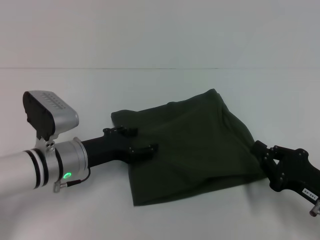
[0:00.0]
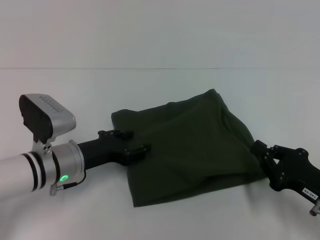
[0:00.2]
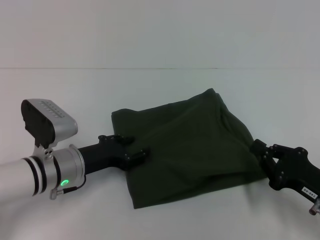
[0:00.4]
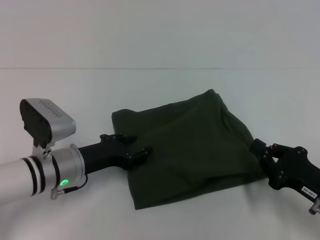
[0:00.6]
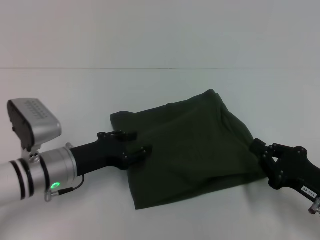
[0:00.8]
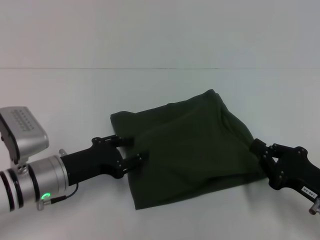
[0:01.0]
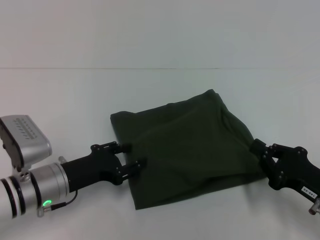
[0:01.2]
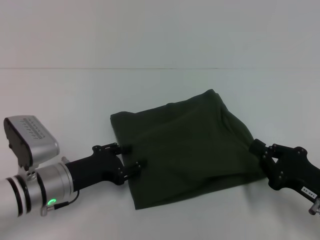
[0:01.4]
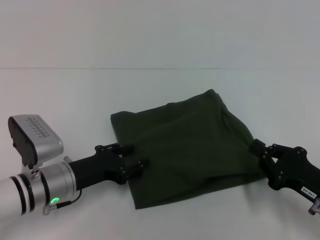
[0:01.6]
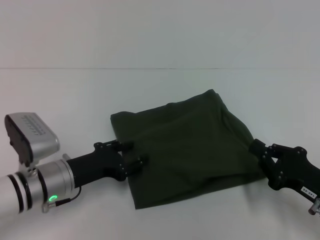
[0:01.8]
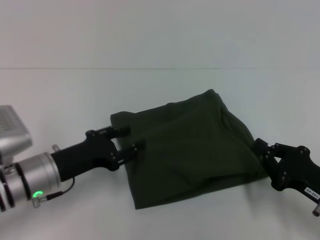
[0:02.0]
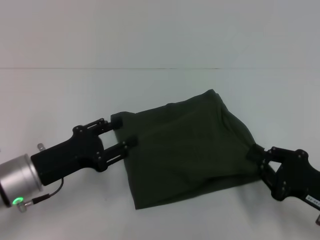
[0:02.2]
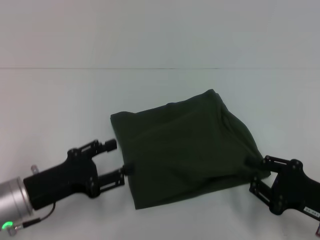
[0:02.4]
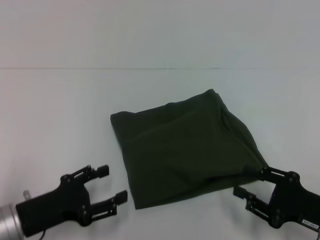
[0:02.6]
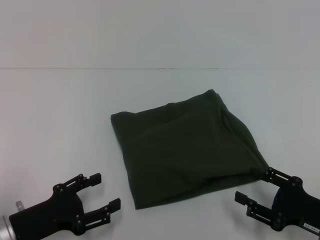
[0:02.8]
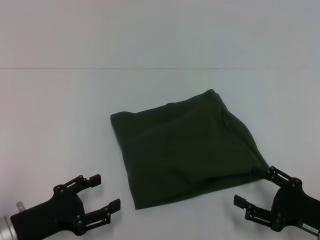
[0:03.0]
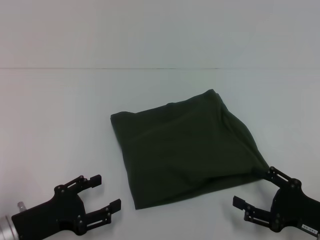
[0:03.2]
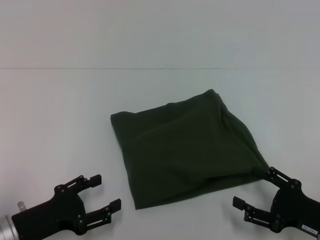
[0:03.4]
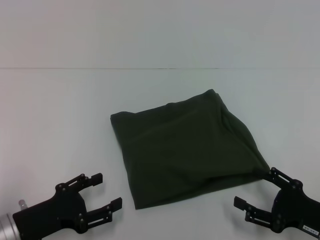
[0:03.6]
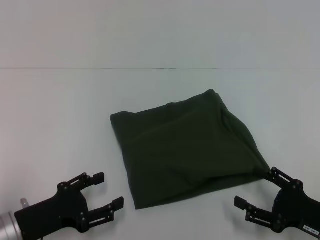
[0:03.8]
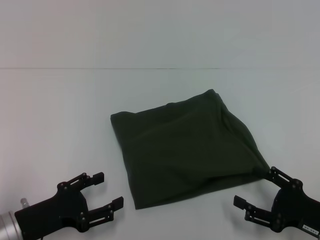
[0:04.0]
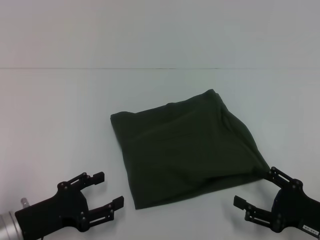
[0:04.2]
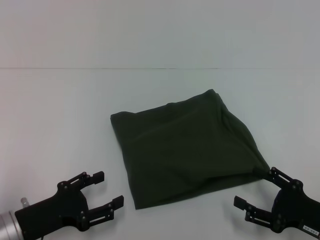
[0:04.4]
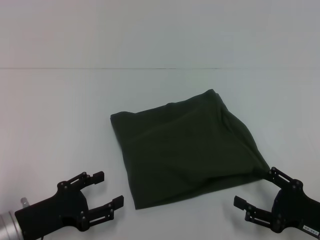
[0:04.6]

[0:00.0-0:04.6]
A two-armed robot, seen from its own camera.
0:00.0 to 0:01.6: There are only small adjustments of the grippers.
0:01.6 to 0:03.0: The right gripper opens. The left gripper shifts approximately 10 cm backward and to the left.
0:03.0 to 0:04.6: Both grippers stay put.

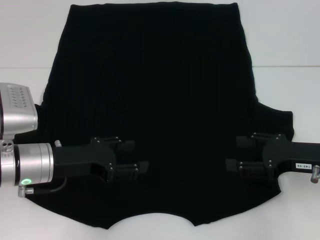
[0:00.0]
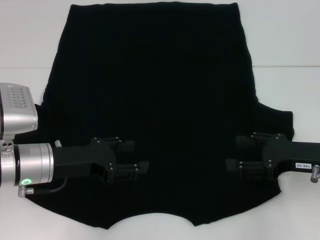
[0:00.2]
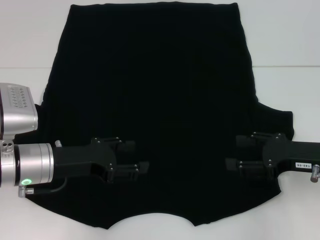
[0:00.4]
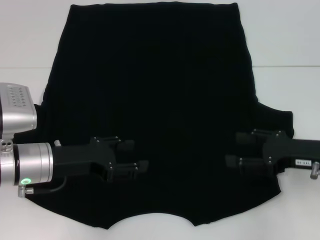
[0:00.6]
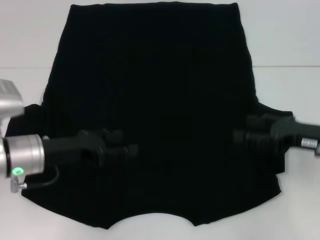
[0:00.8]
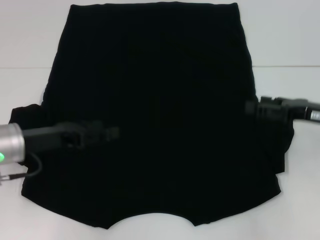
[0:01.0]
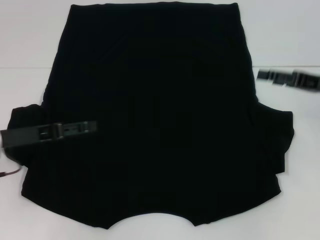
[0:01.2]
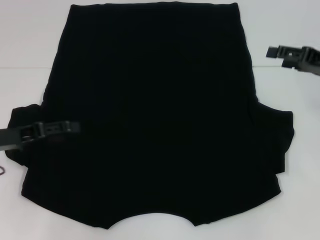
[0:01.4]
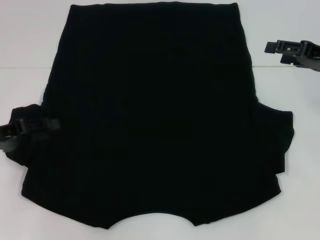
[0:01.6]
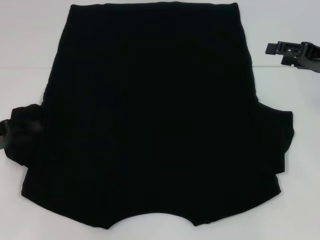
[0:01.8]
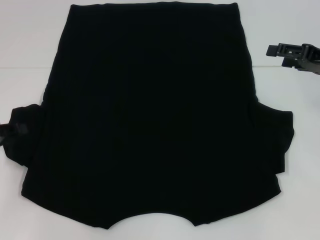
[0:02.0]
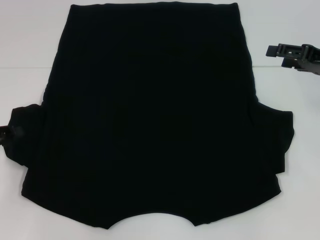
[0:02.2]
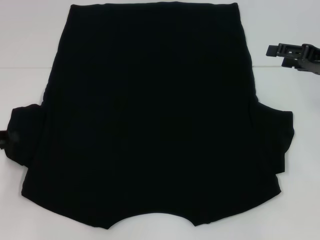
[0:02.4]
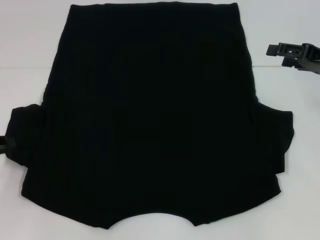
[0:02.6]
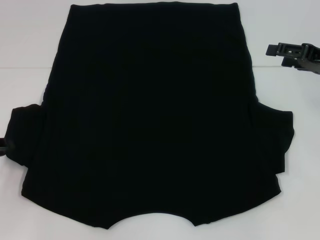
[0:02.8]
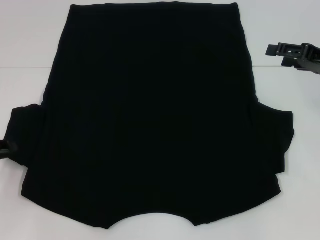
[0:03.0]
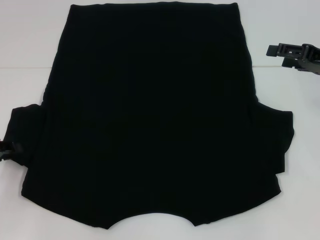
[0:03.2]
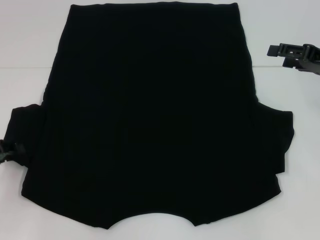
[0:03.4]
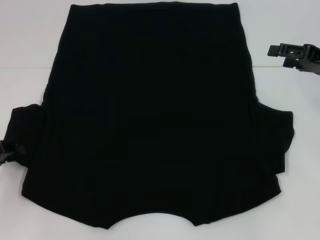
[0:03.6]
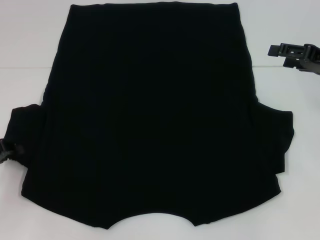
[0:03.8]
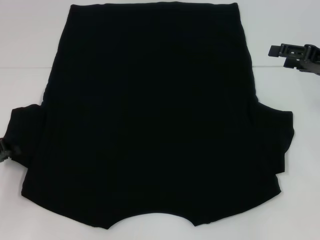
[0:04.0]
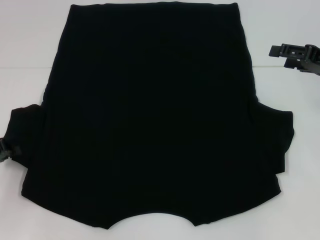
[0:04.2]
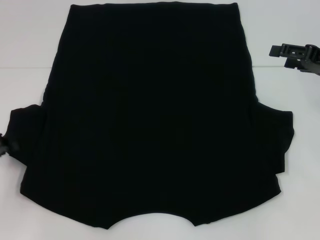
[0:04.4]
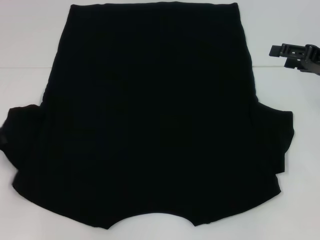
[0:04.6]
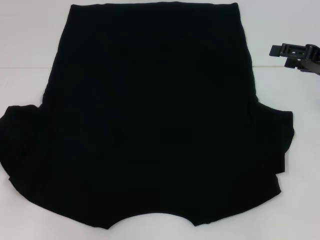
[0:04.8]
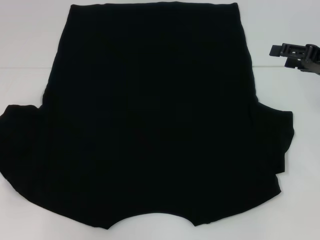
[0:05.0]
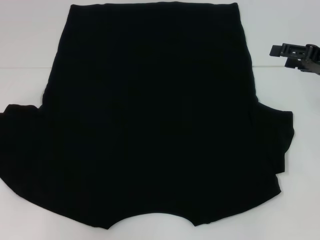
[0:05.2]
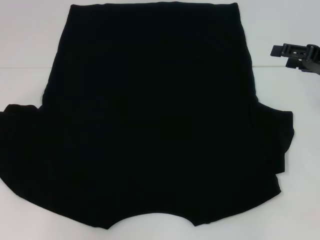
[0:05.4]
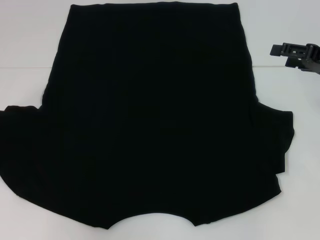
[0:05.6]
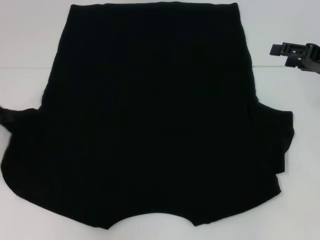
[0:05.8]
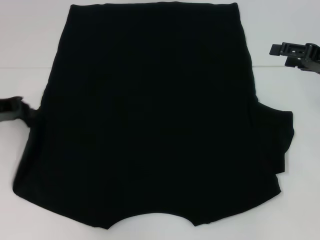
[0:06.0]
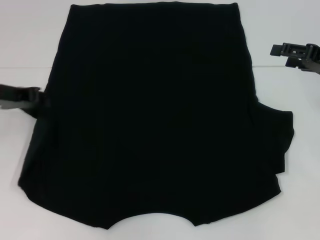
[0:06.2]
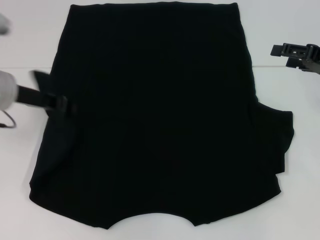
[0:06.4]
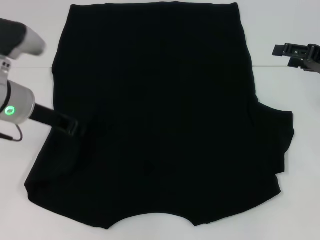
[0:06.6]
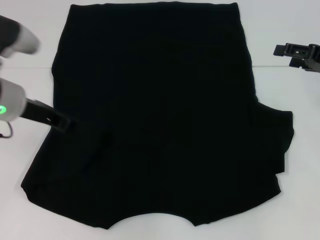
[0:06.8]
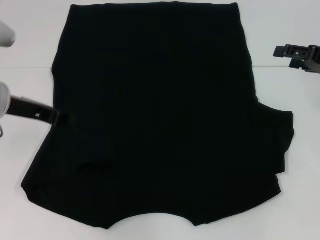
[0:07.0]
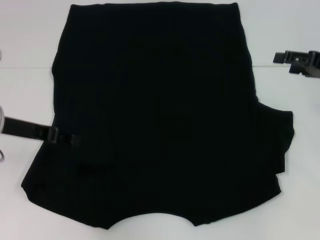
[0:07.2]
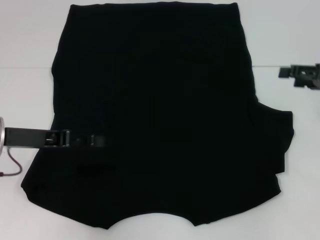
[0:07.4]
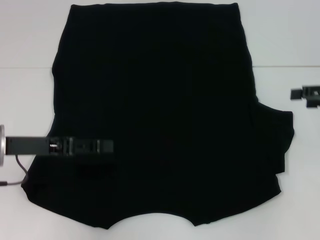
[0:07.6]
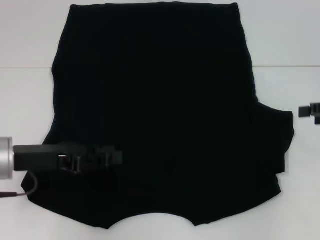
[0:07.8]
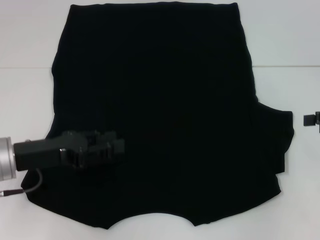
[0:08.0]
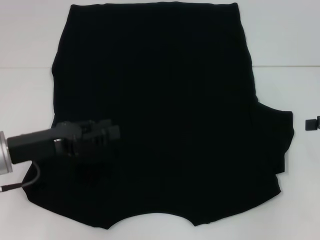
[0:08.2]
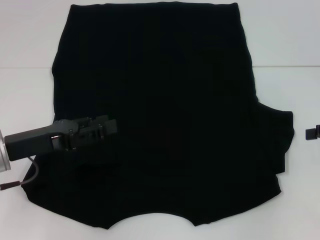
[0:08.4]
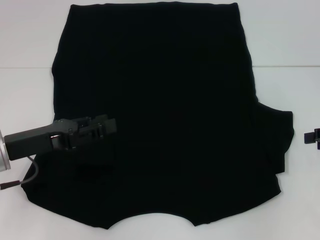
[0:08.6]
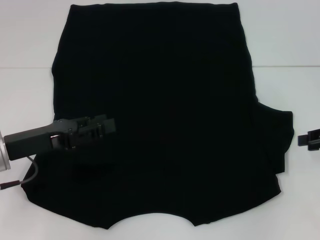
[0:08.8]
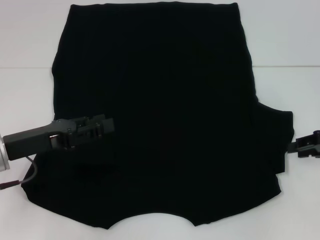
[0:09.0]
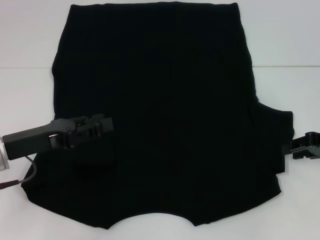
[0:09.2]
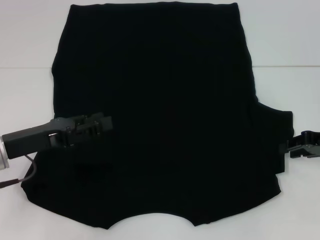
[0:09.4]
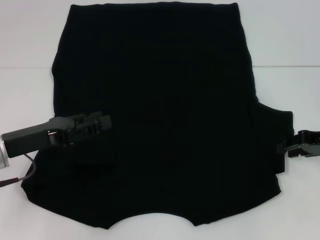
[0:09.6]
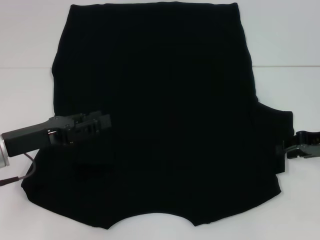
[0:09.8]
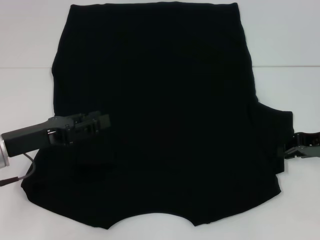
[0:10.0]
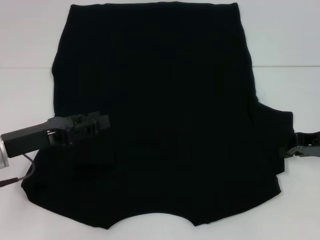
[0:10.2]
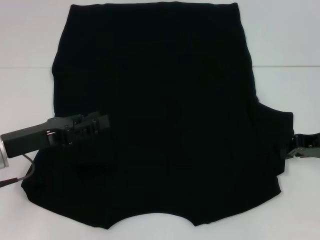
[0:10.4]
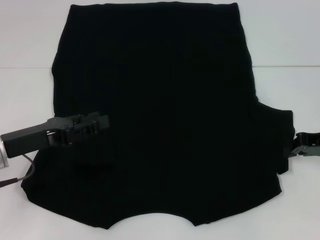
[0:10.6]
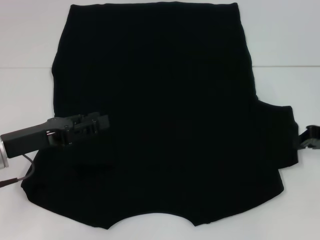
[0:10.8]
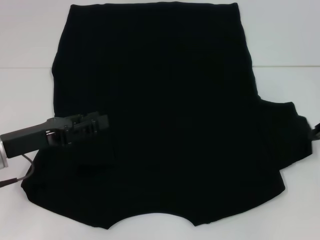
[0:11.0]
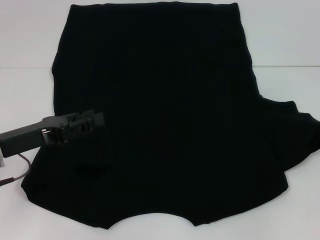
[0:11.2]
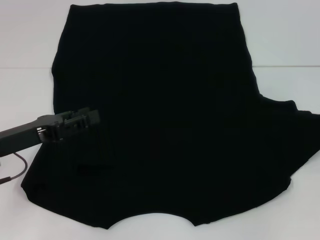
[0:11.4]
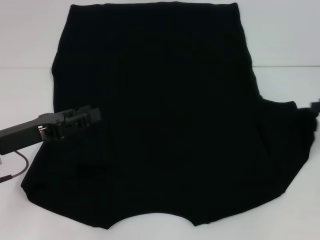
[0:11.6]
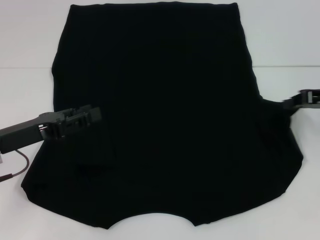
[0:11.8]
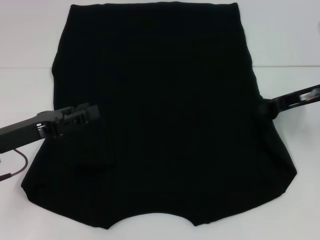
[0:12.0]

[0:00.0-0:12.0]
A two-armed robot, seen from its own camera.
Step, 0:00.0 to 0:06.6: Fold the bottom left sleeve with your left hand.
0:00.0 to 0:01.6: The right gripper moves forward and upward, approximately 10 cm, while the left gripper shifts approximately 10 cm to the left.
0:01.6 to 0:03.0: The left gripper closes its fingers.
0:03.0 to 0:04.4: The grippers stay close to where they were, moving slightly.
0:04.4 to 0:06.0: The left gripper shifts some 10 cm upward and forward.
0:06.0 to 0:07.6: The left gripper goes roughly 5 cm to the right, and opens up.
0:07.6 to 0:09.0: The right gripper ends up roughly 5 cm from where it was, and closes.
0:09.0 to 0:10.4: The right gripper closes up.
0:10.4 to 0:12.0: The right gripper moves upward, approximately 5 cm, and moves some 10 cm to the right and comes back.

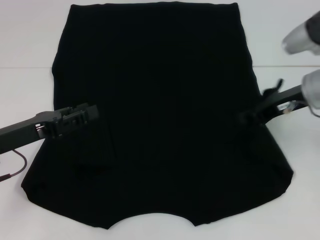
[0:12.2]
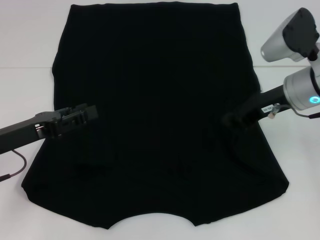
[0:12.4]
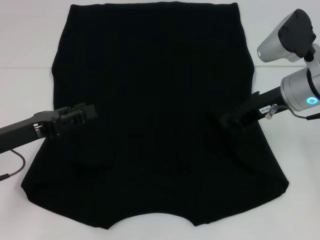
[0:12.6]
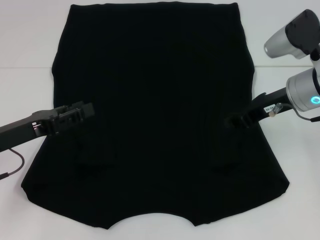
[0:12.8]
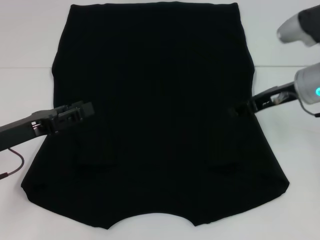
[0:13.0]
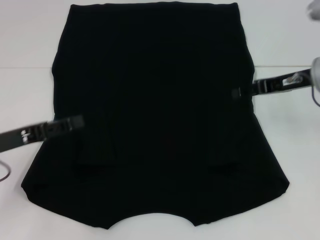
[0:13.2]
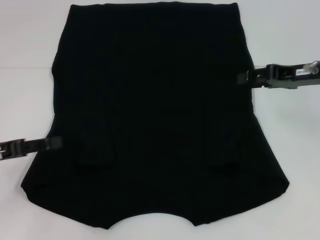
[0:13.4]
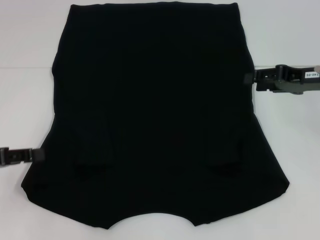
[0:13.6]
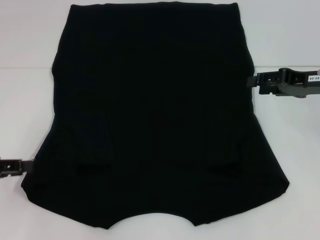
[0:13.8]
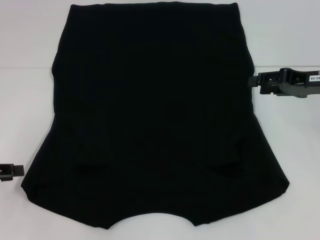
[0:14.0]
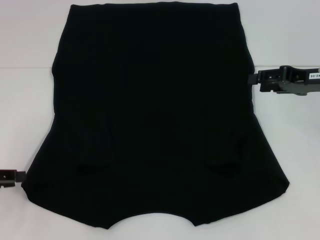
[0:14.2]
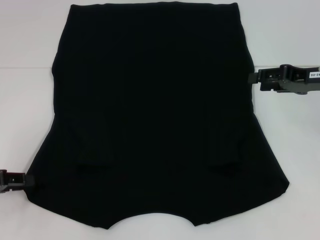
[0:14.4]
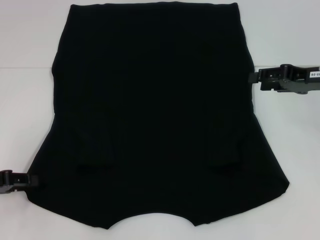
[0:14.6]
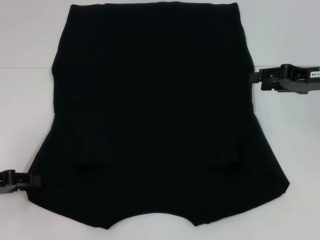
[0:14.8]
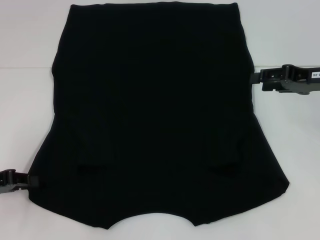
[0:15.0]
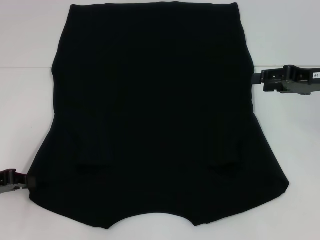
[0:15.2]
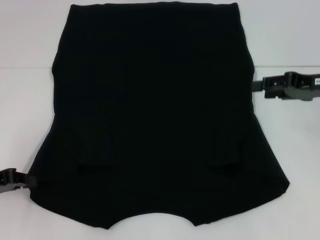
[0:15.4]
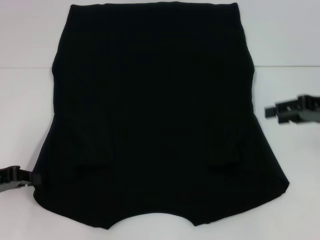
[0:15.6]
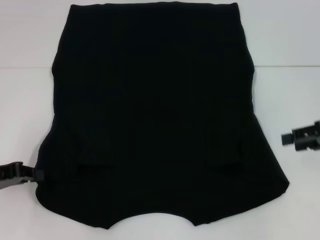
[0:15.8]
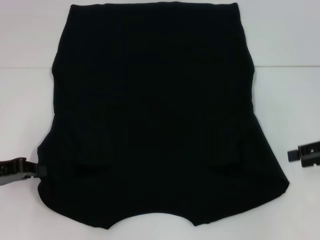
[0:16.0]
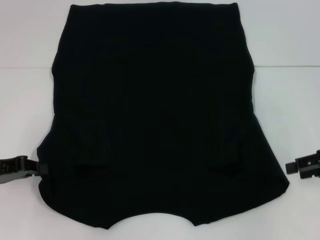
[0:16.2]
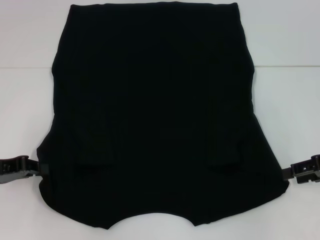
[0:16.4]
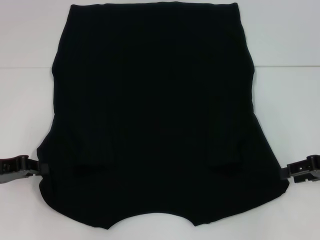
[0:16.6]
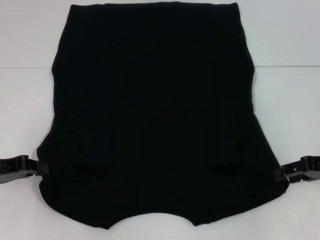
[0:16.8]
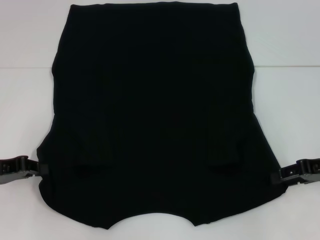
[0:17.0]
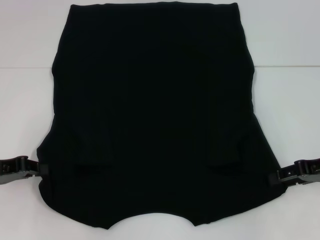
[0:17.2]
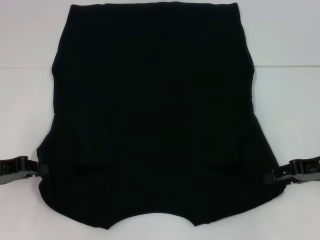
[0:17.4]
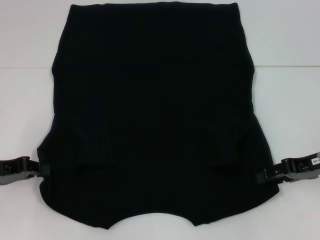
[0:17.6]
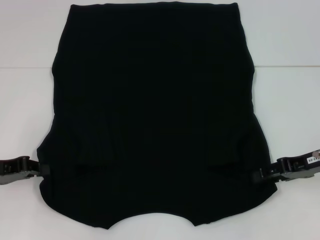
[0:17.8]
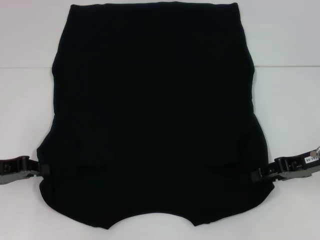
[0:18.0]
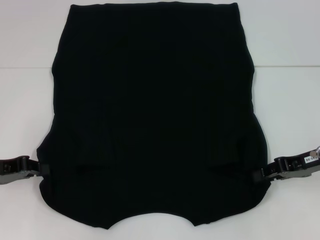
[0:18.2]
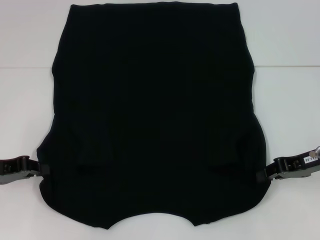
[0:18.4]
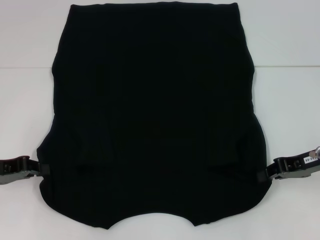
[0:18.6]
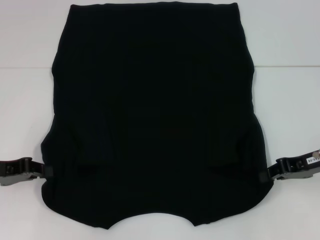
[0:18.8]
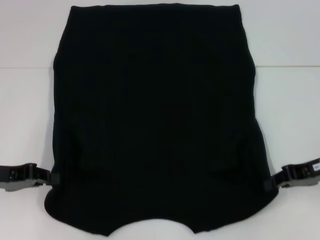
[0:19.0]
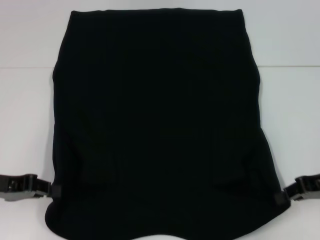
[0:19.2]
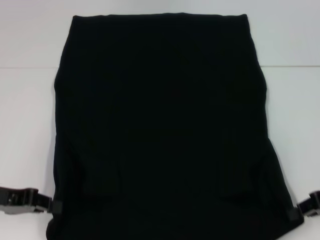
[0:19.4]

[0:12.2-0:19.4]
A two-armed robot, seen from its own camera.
Step, 0:13.0 to 0:15.2: Grab the bottom left corner with your left hand.
Step, 0:15.4 to 0:18.6: Grab the bottom right corner with your right hand.
0:12.2 to 0:13.6: The right gripper shifts some 5 cm to the right, and opens; the left gripper moves to the left, about 5 cm.
0:13.6 to 0:15.0: The grippers move only a little.
0:15.0 to 0:16.6: The right gripper travels backward and downward by approximately 10 cm.
0:16.6 to 0:18.0: The grippers move only a little.
0:18.0 to 0:19.4: The right gripper ends up some 5 cm from where it was, and closes up.
